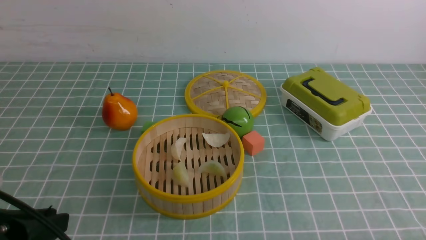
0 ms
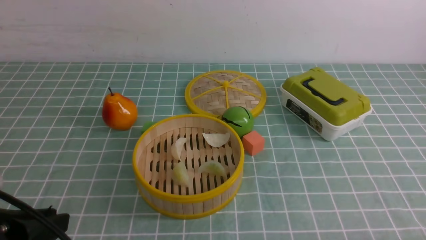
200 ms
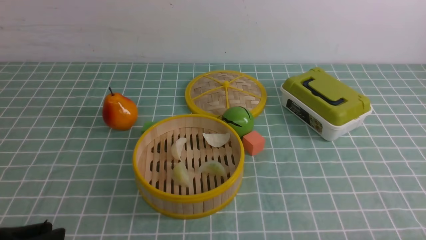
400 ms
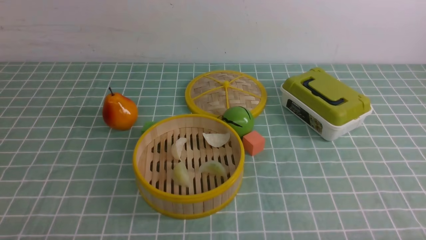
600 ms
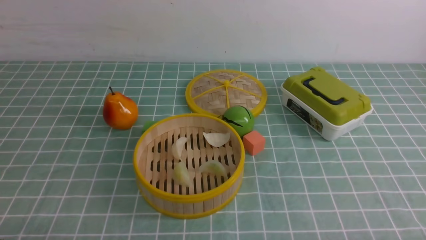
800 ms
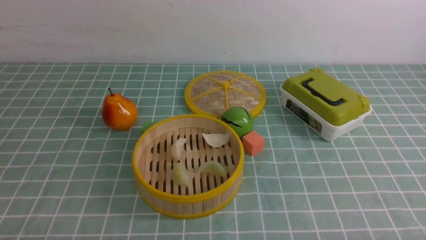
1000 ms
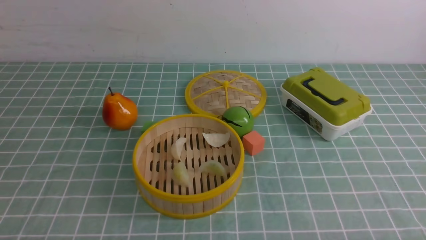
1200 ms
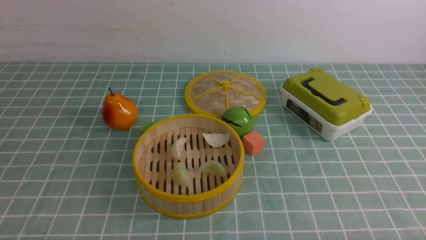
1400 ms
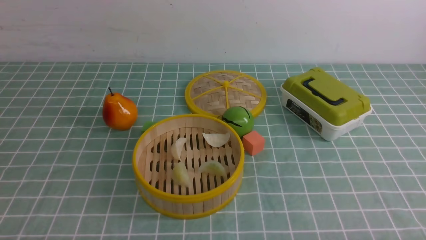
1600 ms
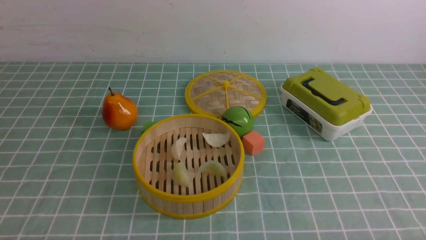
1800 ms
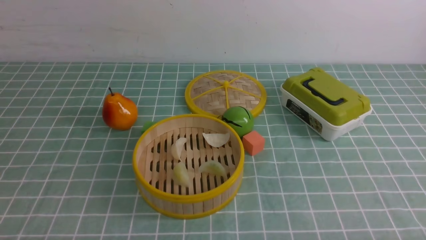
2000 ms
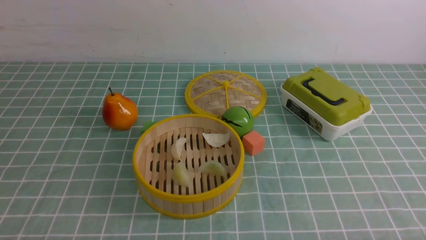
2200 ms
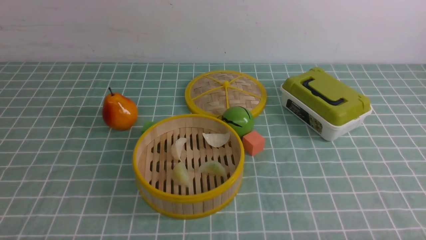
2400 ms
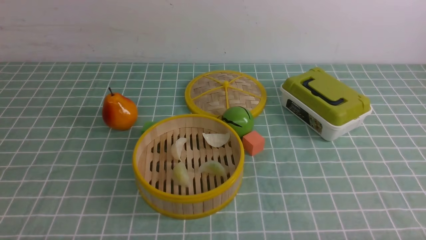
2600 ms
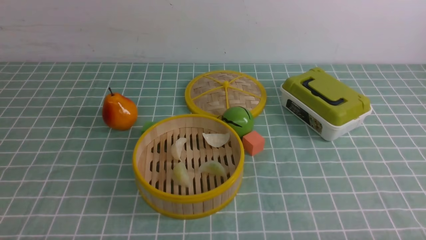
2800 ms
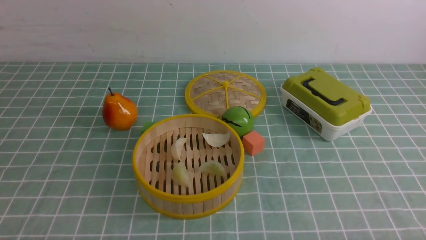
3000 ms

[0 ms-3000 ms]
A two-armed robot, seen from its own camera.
Task of the whole recording: put the dumplings into the steamer on the table with the blue tablecloth.
0 ms to 1600 ms: The left gripper goes roughly 10 cm downward, and closes up.
1600 ms to 3000 ms: Neither gripper changes place.
